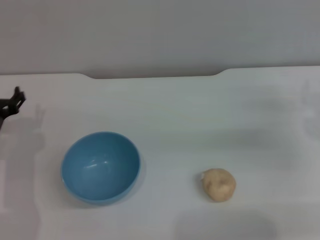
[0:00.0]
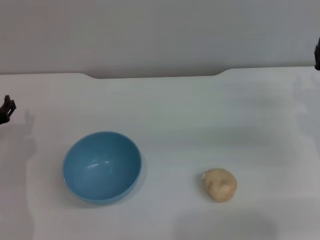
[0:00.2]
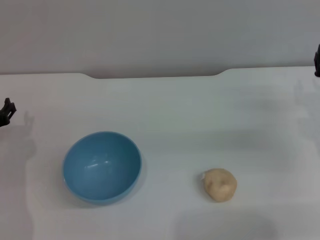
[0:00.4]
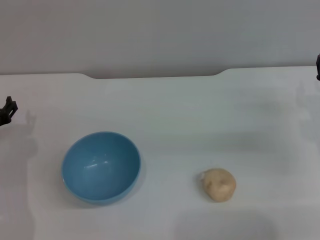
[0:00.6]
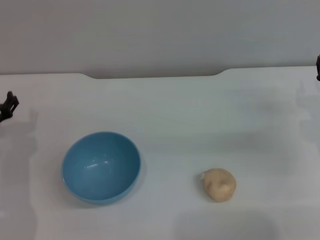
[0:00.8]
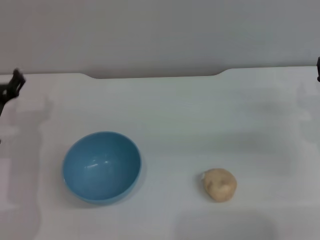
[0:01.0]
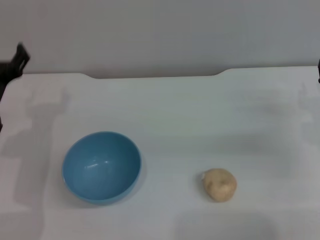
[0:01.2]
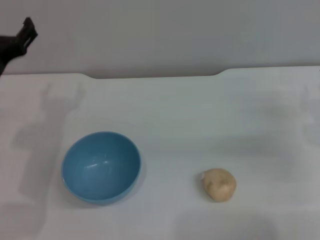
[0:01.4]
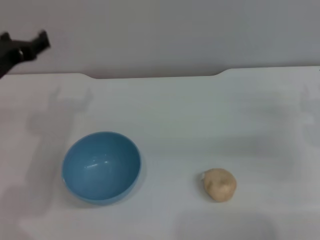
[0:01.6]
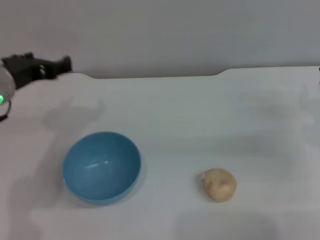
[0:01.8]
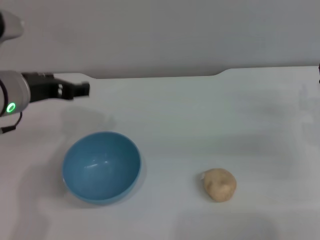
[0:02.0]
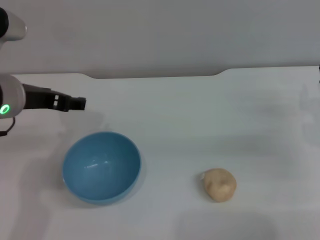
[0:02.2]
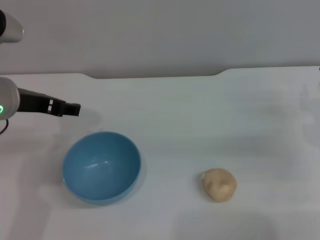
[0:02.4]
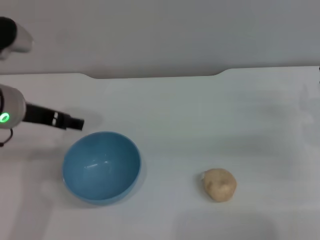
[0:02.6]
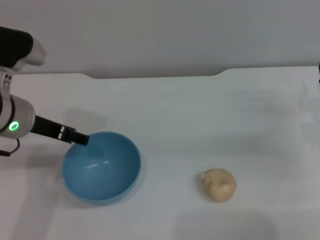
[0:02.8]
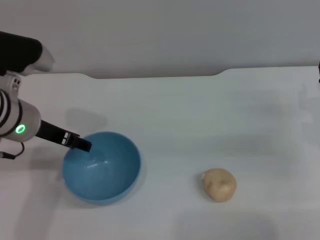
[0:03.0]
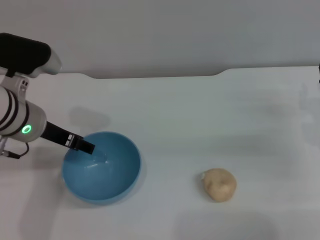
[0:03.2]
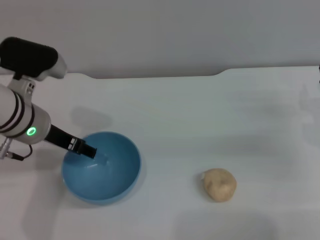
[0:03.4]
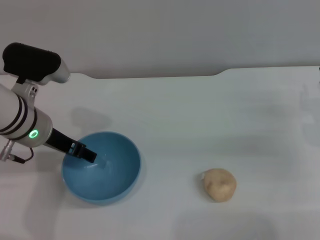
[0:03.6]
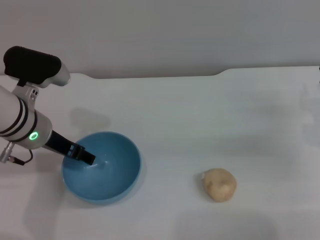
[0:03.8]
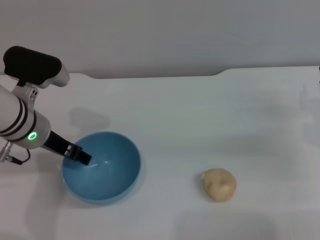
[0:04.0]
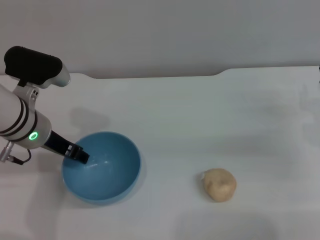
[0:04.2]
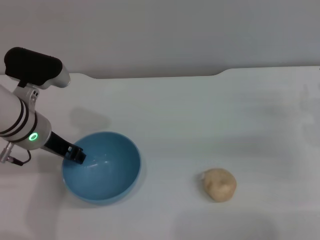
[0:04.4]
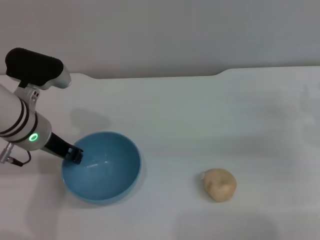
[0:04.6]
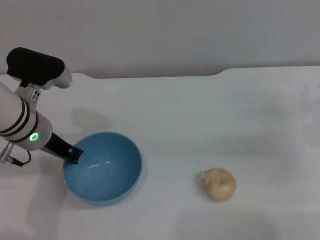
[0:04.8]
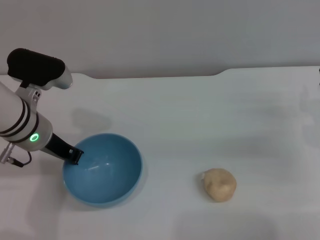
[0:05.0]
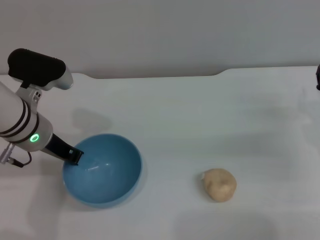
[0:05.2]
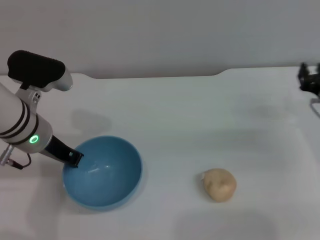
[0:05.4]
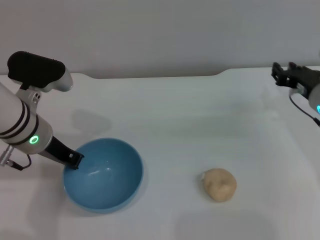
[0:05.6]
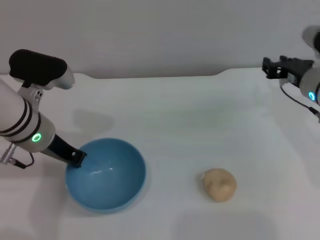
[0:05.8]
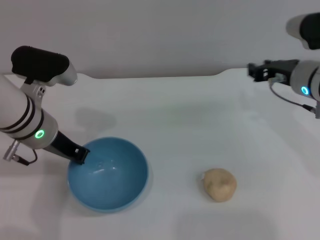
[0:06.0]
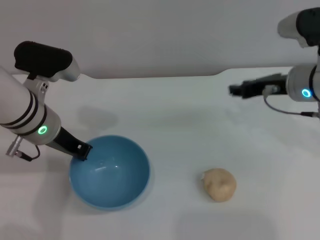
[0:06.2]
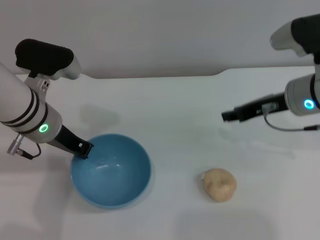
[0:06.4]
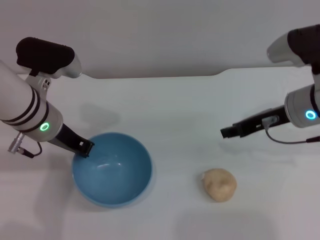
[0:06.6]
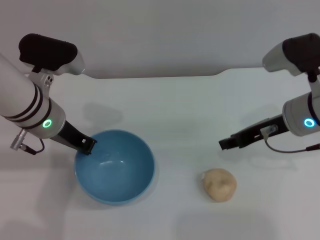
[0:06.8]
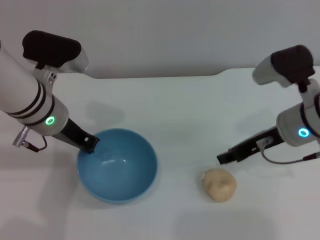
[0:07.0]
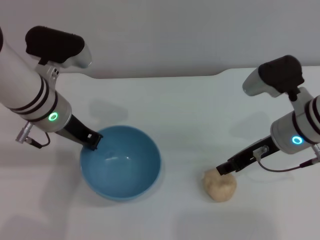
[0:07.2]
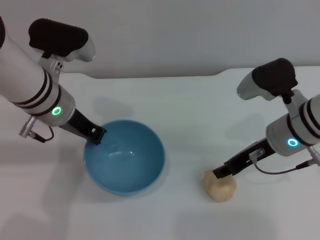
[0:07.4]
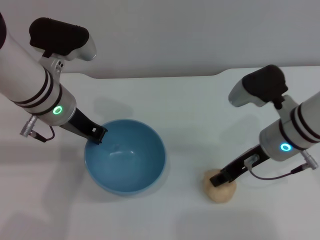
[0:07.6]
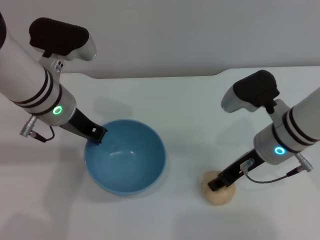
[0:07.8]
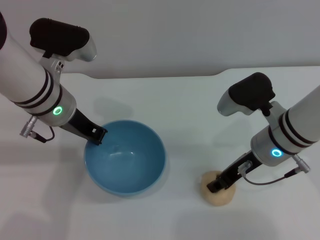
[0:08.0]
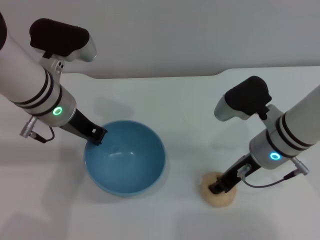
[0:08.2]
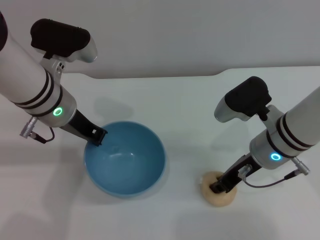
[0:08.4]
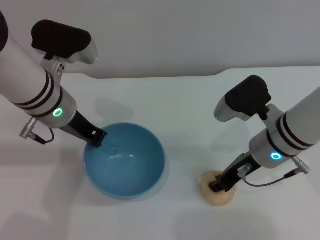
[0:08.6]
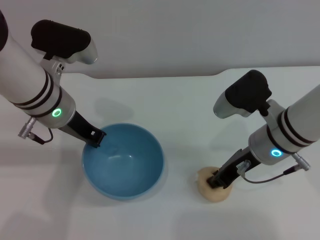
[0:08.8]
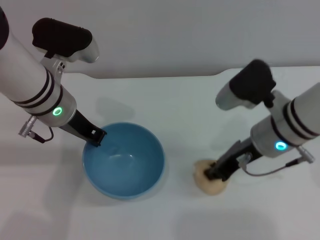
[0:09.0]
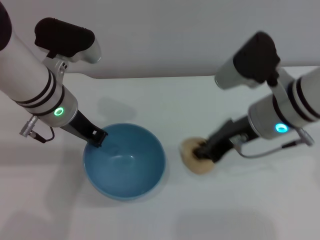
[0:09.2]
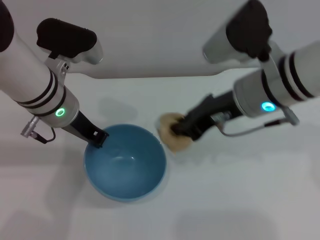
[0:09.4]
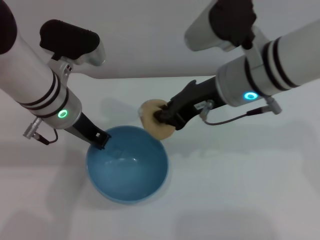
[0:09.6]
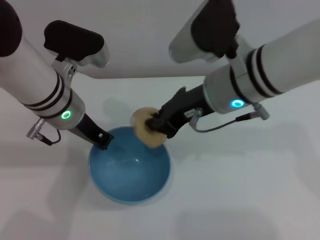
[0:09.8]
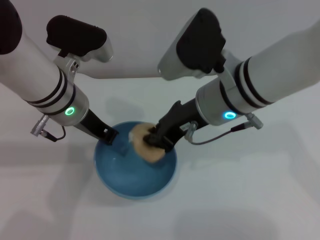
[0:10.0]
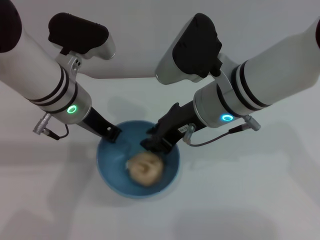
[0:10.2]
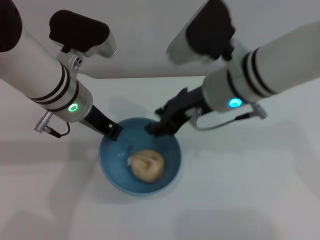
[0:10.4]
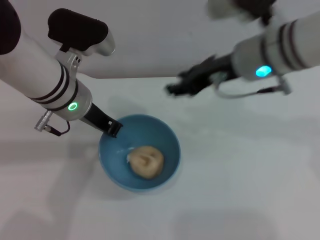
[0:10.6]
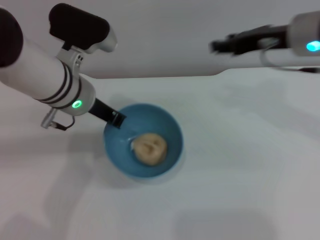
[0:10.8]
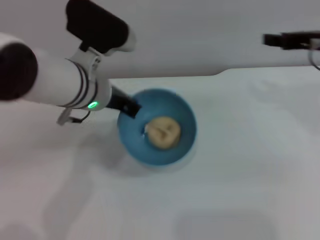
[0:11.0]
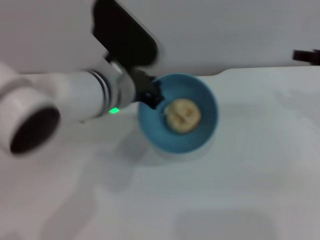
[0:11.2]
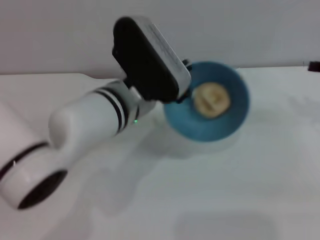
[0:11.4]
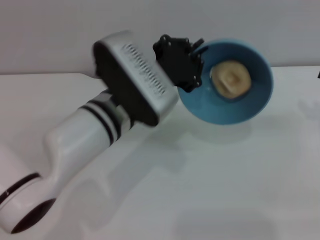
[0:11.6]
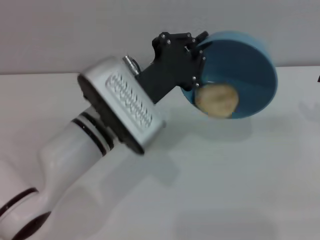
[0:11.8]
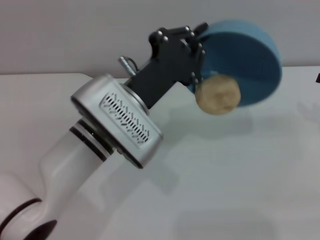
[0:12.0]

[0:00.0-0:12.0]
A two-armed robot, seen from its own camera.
Task of the whole recording: put the egg yolk pastry into the blue bowl and pour it out repeatedly.
Step, 0:00.0 to 0:07.4: Pick up the bowl with the left gripper.
Step, 0:07.6 to 0:09.0: Pick up the egg yolk pastry with the right gripper.
Step, 0:09.2 to 0:10.2: Place the egg yolk pastry into the bowl.
0:00.0 to 0:01.6: The left gripper goes some 15 cm upward.
0:03.0 to 0:04.4: The grippers make only small movements.
0:04.4 to 0:06.0: The left gripper closes its fingers, while the right gripper travels to the left and upward by some 10 cm.
0:06.0 to 0:07.6: The right gripper shifts by roughly 5 cm.
0:07.6 to 0:09.0: The right gripper closes up.
0:09.0 to 0:10.4: The right gripper travels upward and to the left by roughly 10 cm, and opens its fingers.
0:10.4 to 0:12.0: The left gripper goes about 10 cm backward and to the right. Meanwhile the right gripper is displaced to the right by about 25 cm.

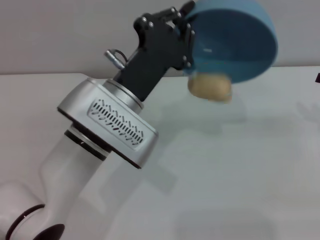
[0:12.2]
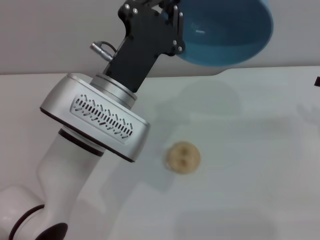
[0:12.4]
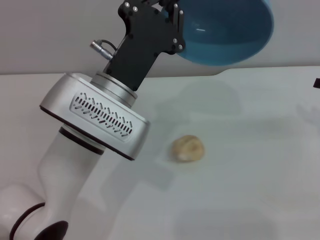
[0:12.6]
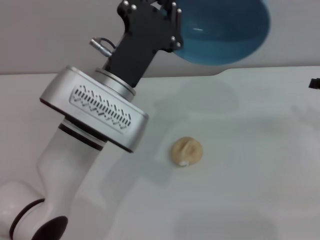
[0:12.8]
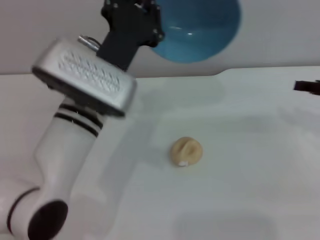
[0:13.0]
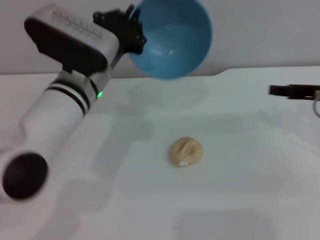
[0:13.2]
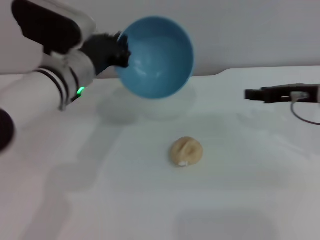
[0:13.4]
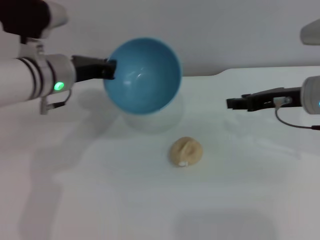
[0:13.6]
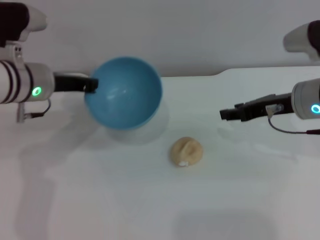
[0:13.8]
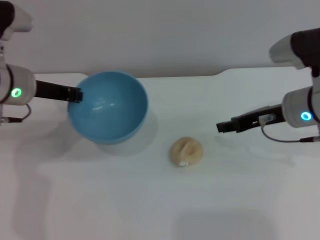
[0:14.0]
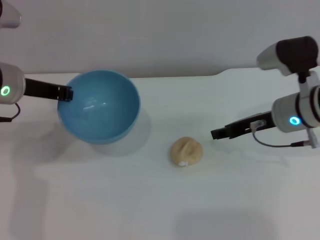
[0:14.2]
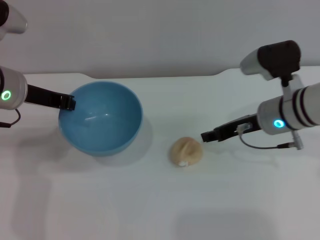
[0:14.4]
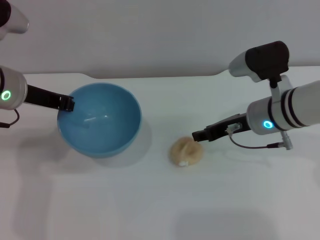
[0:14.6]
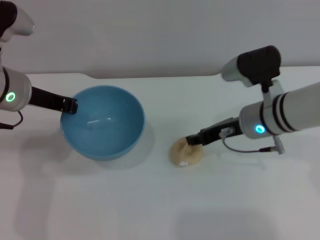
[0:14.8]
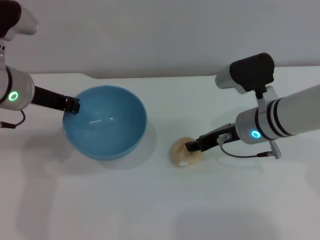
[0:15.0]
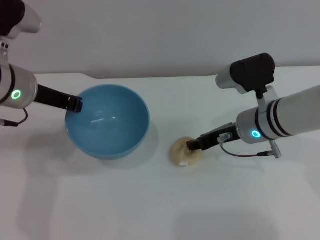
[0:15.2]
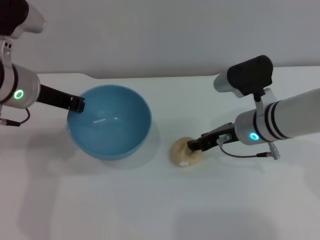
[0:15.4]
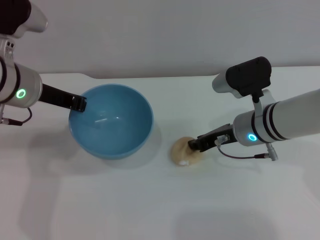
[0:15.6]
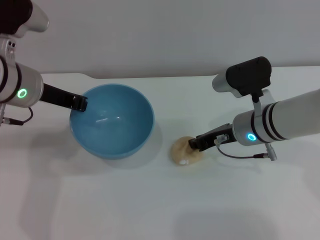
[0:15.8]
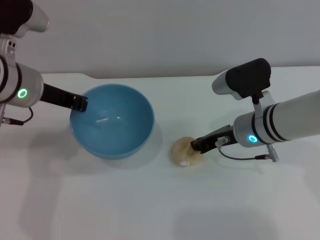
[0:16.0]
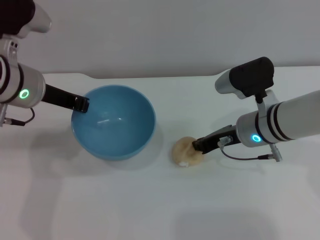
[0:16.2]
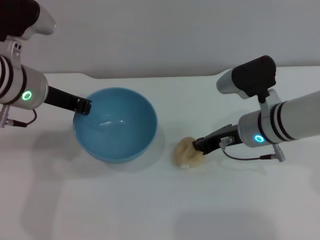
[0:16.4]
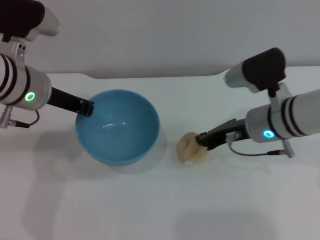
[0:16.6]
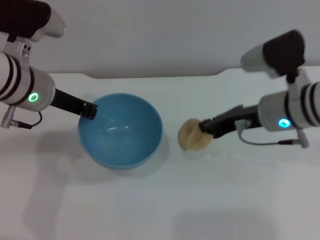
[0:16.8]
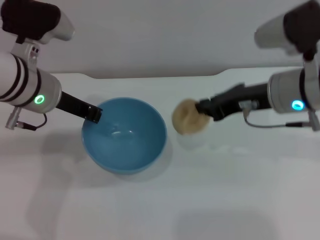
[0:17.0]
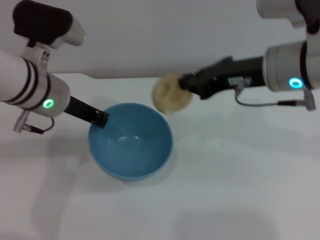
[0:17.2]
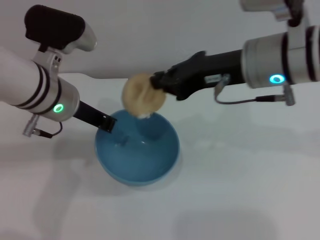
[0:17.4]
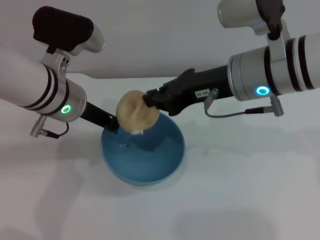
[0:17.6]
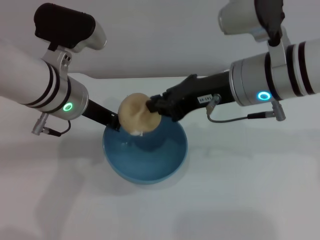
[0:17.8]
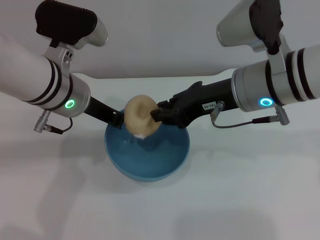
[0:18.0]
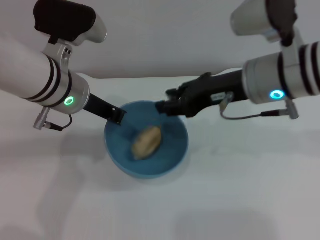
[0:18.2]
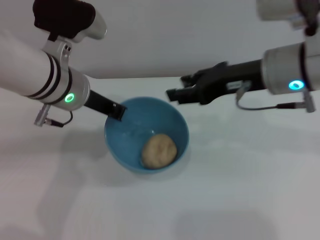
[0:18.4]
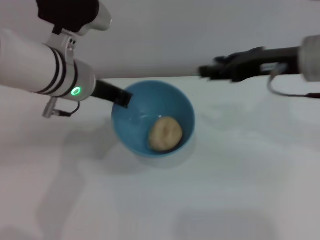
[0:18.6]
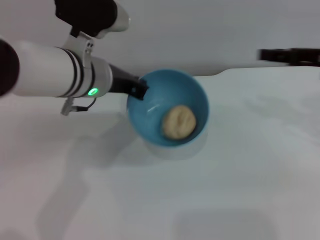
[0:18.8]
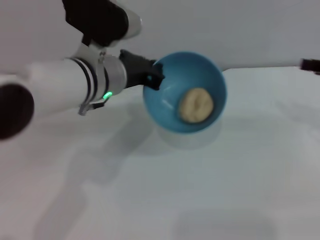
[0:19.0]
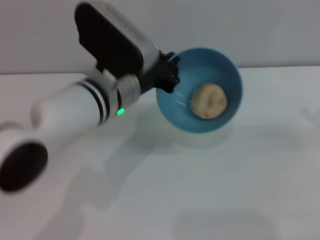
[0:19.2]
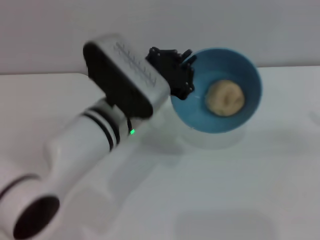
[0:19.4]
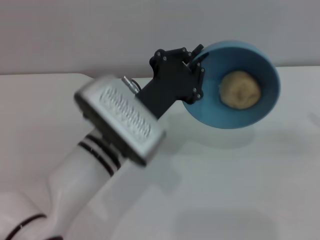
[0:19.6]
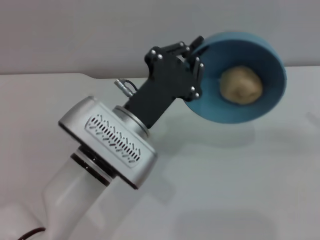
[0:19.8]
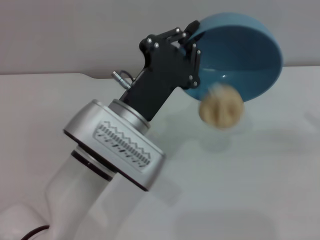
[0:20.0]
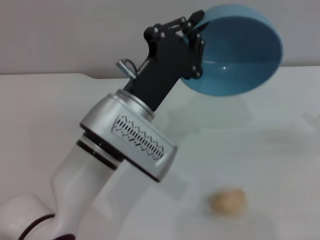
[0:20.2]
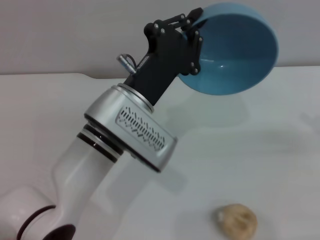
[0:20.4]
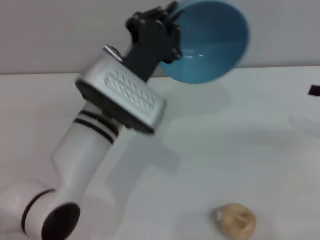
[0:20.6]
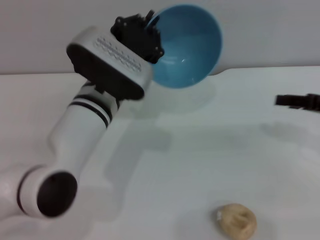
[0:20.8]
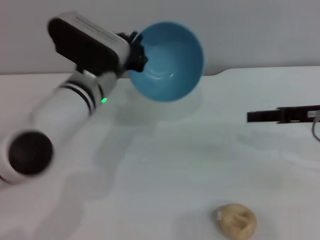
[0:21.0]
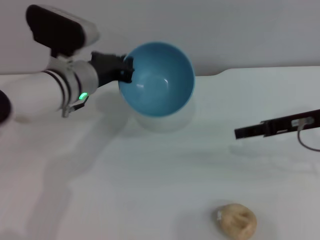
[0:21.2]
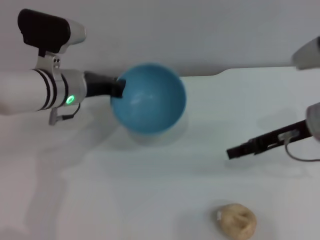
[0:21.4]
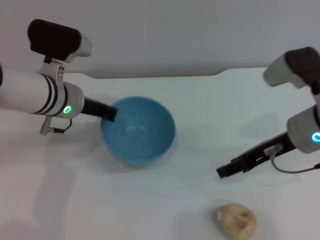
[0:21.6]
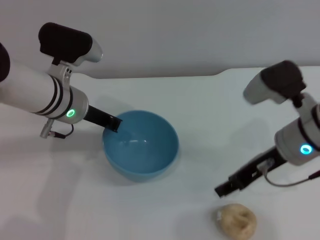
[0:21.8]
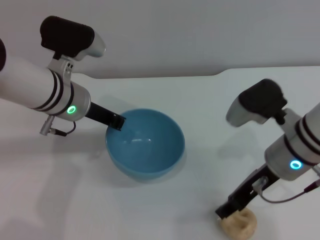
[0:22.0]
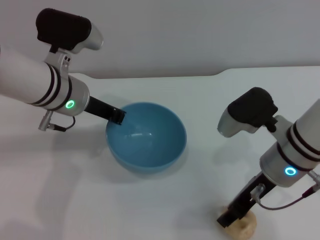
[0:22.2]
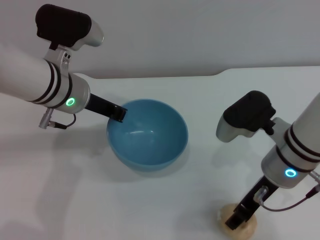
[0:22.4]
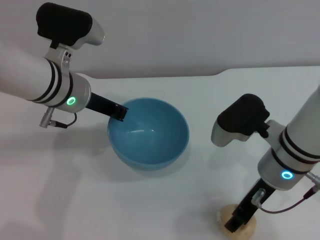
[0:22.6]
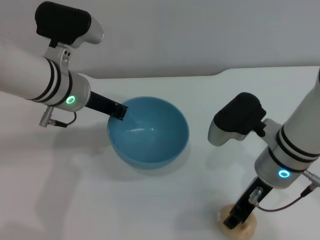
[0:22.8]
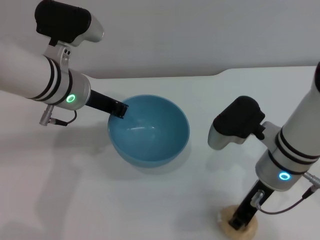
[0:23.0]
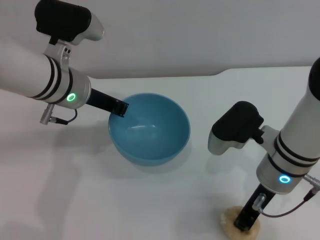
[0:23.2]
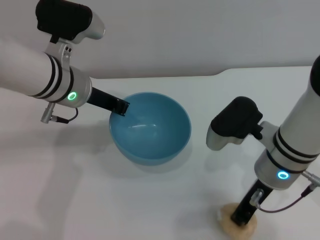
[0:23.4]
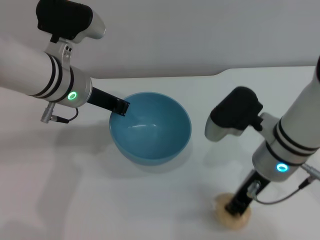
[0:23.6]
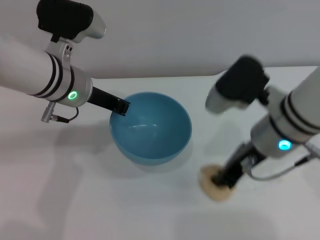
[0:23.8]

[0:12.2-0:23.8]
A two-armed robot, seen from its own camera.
Task of the whole recording: put the egg yolk pastry into the blue bowl and pour it out repeatedly.
Step, 0:12.6 to 0:16.8: Pick up the egg yolk pastry with the right gripper.
Step, 0:17.0 to 0:18.2: Place the egg yolk pastry into the bowl.
Step, 0:18.4 to 0:20.2: Pour the egg yolk pastry out of bowl.
Step, 0:20.6 to 0:23.8: Pick up the egg yolk pastry with the right gripper.
0:12.2 to 0:13.6: The right gripper is displaced to the left by about 10 cm. The left gripper shifts some 15 cm to the left and forward.
0:13.6 to 0:15.0: The left gripper moves some 5 cm; the right gripper is displaced to the left and downward by about 10 cm.
0:15.0 to 0:16.6: The right gripper closes up.
0:16.6 to 0:18.0: The left gripper shifts about 5 cm to the right, while the right gripper shifts about 10 cm upward.
0:18.0 to 0:19.4: The right gripper is displaced to the right by roughly 25 cm, and opens, while the left gripper heads to the right, covering about 5 cm.
0:19.4 to 0:21.0: The left gripper heads forward, covering roughly 5 cm. The right gripper shifts about 10 cm to the left.
0:21.0 to 0:22.4: The left gripper moves about 5 cm. The right gripper goes approximately 10 cm to the left.
0:22.4 to 0:23.8: The right gripper goes about 5 cm upward, and closes up.
